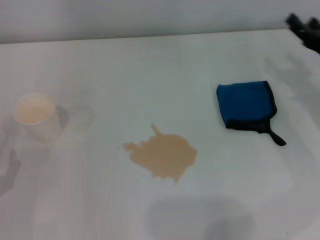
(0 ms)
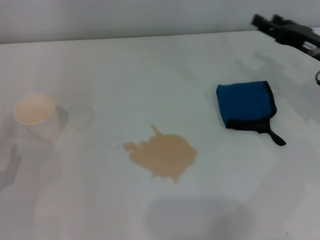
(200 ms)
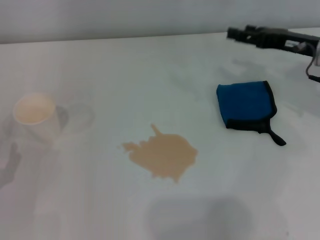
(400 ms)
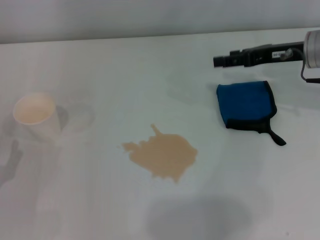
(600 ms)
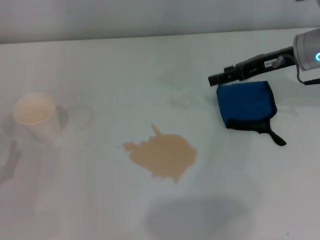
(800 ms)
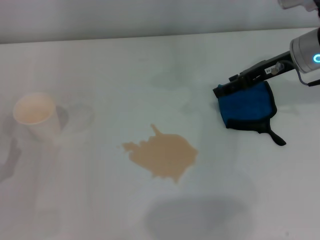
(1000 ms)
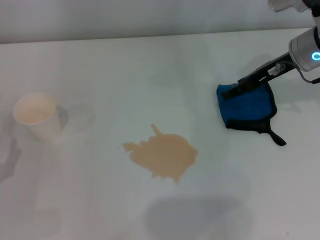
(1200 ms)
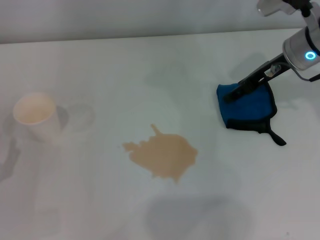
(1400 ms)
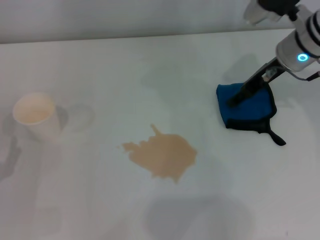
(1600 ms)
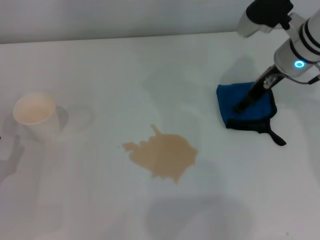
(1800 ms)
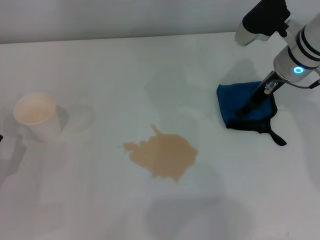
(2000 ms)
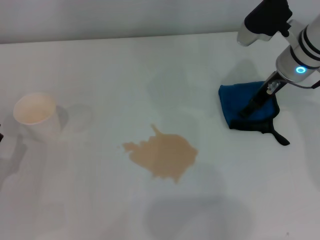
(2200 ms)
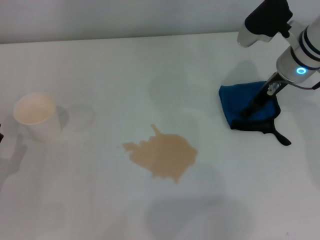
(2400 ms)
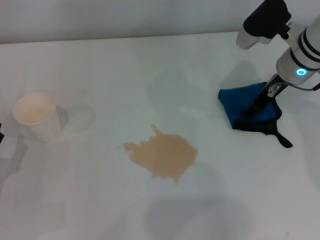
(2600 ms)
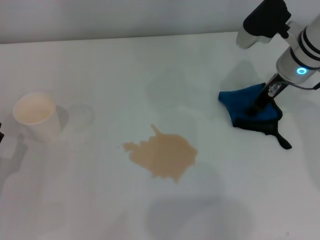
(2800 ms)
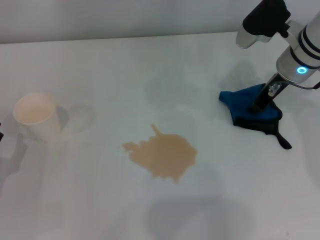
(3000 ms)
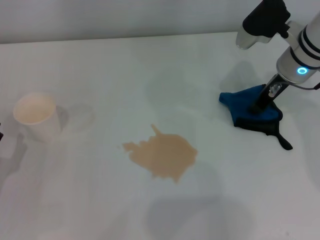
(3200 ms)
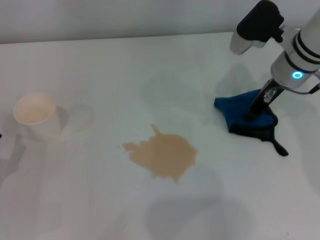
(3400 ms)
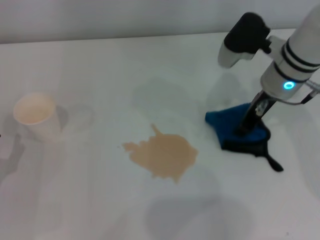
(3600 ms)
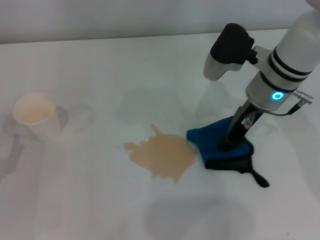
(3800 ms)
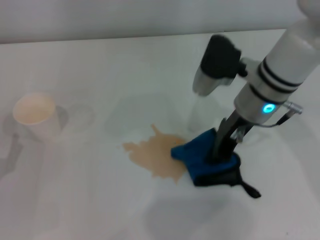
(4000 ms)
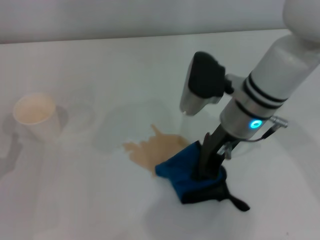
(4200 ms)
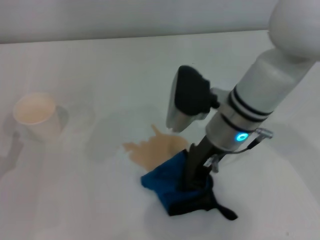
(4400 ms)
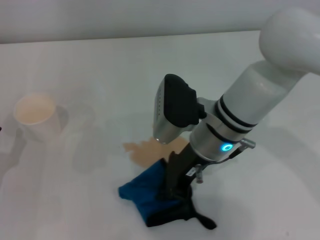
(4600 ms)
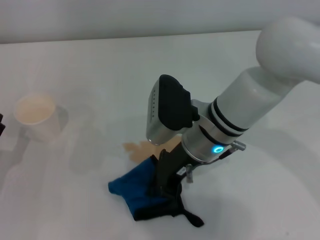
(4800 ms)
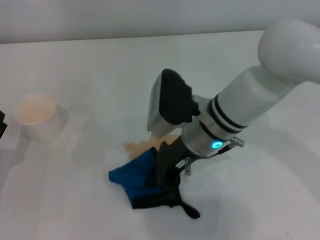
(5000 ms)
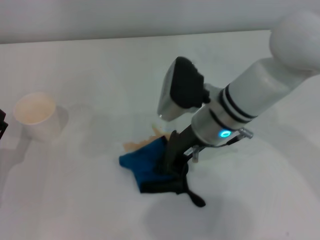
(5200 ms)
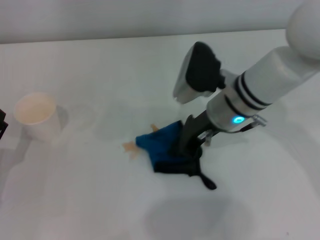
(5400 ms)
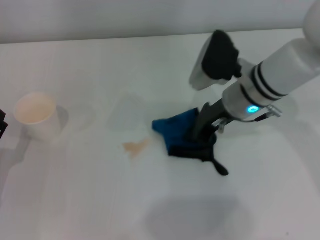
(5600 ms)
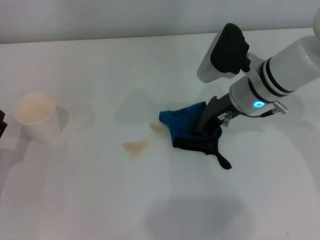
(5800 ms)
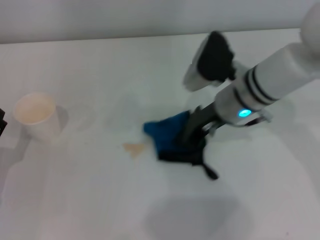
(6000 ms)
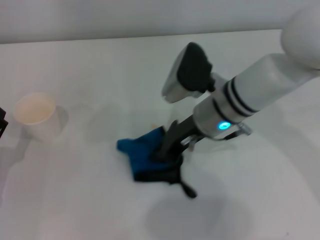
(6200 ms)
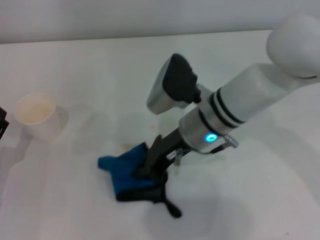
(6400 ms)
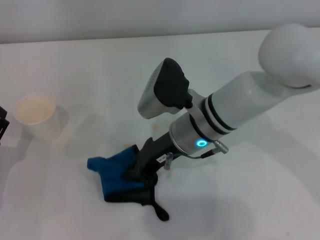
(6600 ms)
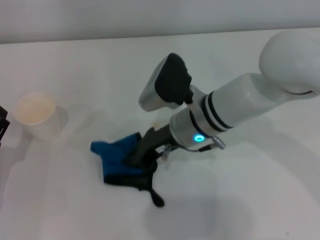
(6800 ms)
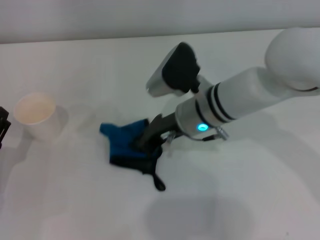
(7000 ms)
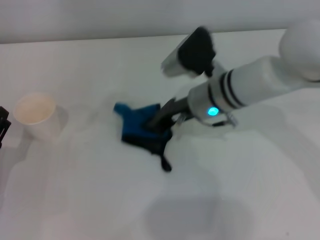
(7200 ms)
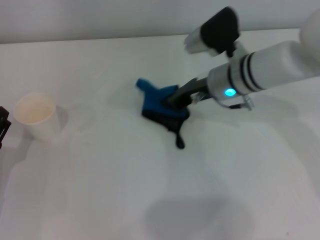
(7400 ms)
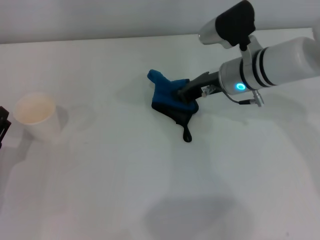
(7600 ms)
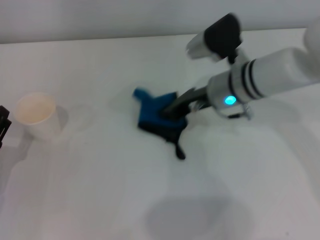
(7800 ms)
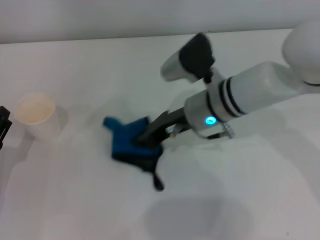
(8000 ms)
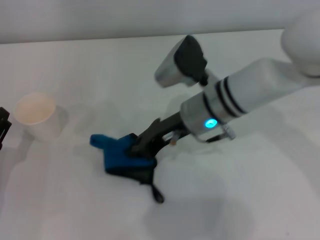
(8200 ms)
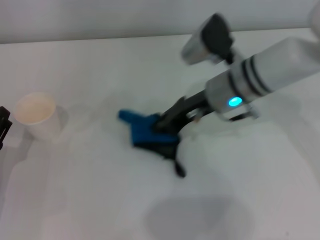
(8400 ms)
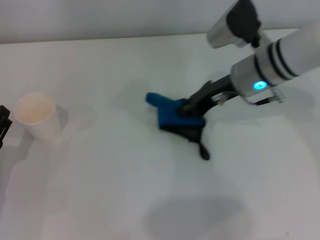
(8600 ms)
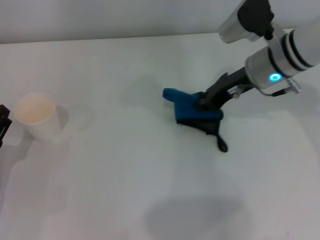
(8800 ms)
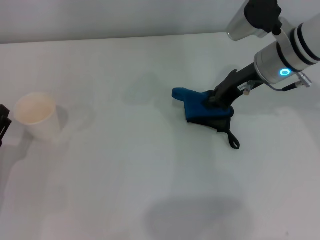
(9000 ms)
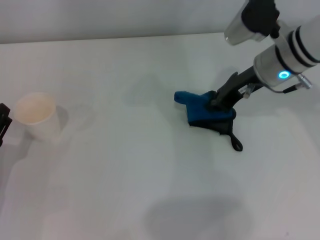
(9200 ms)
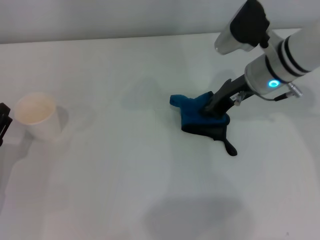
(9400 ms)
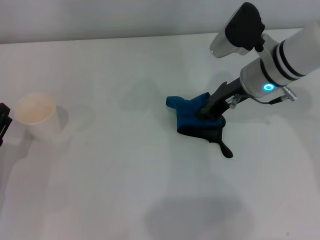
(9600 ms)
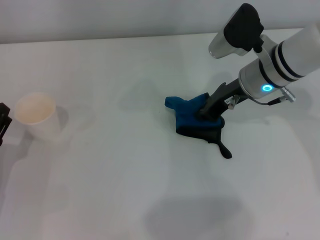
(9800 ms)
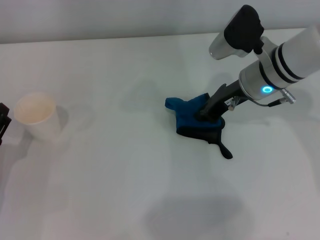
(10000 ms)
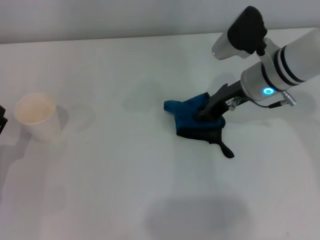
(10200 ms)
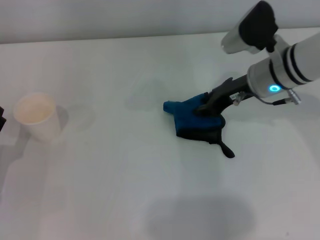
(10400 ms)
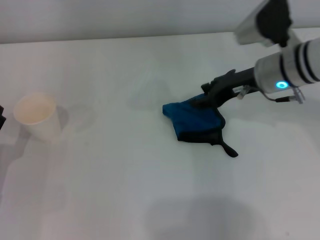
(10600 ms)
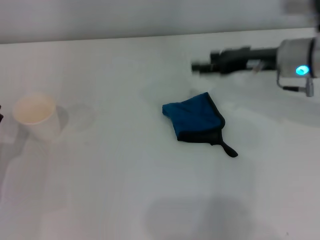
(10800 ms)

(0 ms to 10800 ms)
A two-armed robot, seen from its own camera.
Step, 0 ms - 2800 ms: Grasp the rag with the right gripper.
Step, 3000 ms - 9800 ms: Wipe the stains off the table with the right gripper.
Step, 10000 ms - 10200 ms: Place the rag on the table with the right gripper.
0 ms - 1600 ms: The right gripper is displaced to the left, forward and upward by some 15 cm.
1600 ms - 3000 ms: The right gripper closes.
3000 ms - 4600 ms: The right gripper moves to the left and backward, approximately 15 cm.
4600 ms - 6200 ms: The right gripper travels to the right and back again, about 10 cm each way.
7800 ms - 9200 ms: The right gripper travels to the right by approximately 5 cm.
9200 ms - 10800 ms: The right gripper opens up.

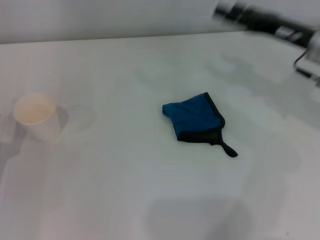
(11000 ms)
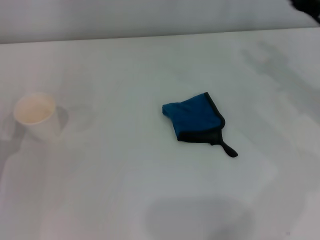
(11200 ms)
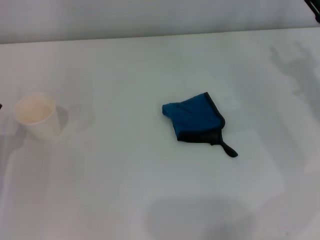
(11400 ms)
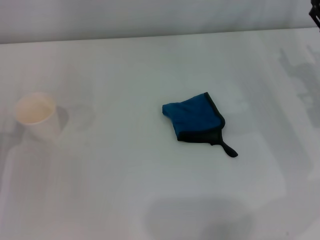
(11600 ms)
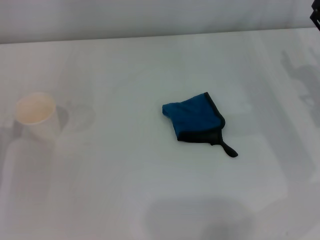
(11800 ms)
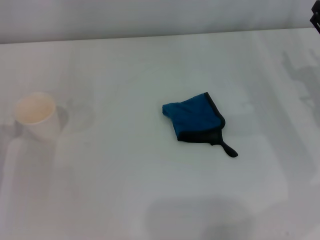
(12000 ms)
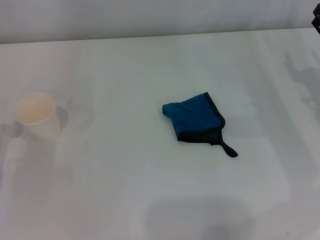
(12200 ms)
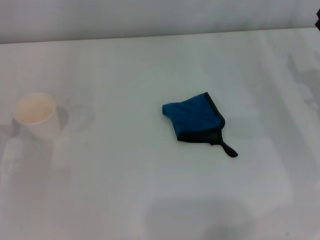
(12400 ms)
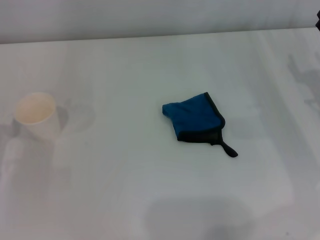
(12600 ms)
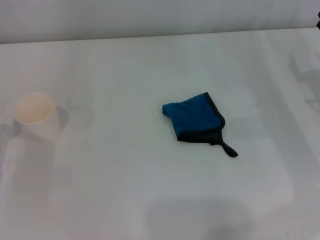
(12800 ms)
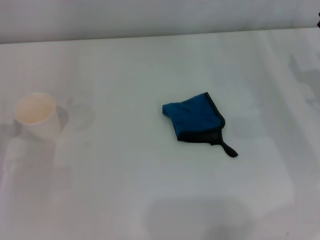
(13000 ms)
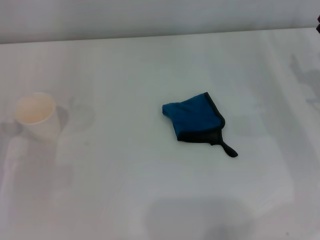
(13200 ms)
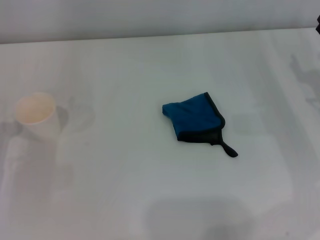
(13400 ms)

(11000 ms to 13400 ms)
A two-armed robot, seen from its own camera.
11000 ms - 12200 ms: The right gripper shifts about 10 cm downward and to the right.
12200 ms - 13400 ms: The two grippers keep their place.

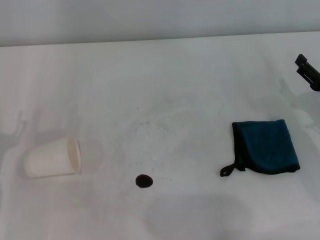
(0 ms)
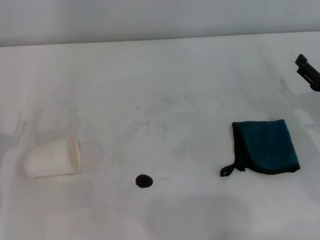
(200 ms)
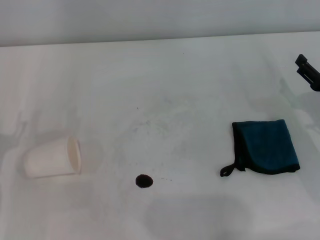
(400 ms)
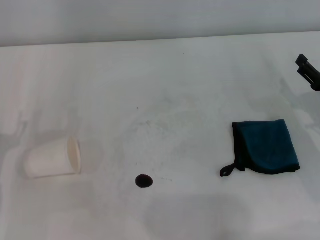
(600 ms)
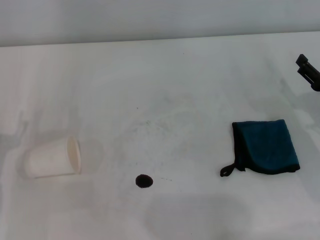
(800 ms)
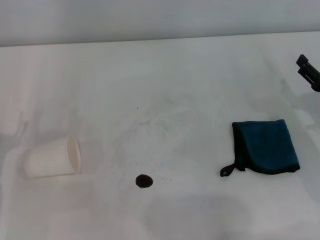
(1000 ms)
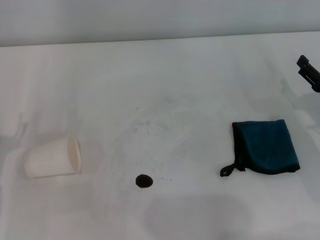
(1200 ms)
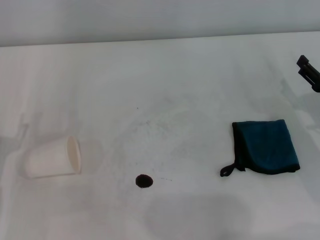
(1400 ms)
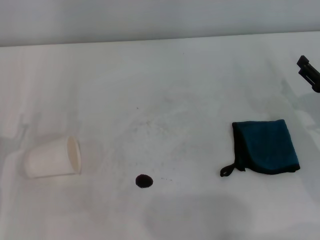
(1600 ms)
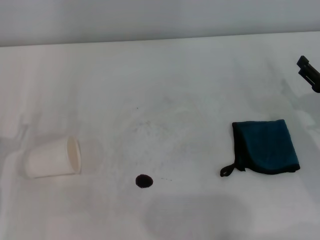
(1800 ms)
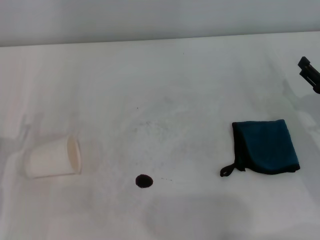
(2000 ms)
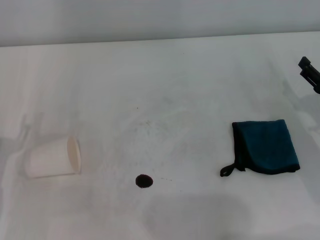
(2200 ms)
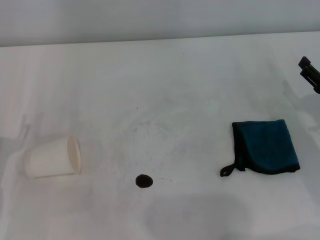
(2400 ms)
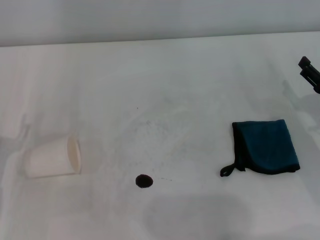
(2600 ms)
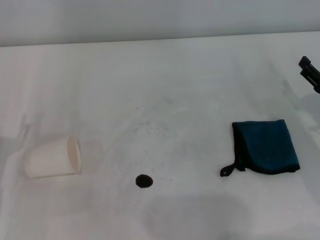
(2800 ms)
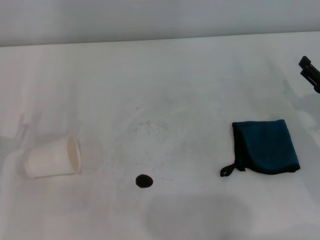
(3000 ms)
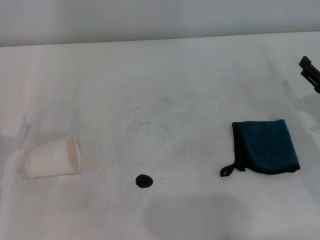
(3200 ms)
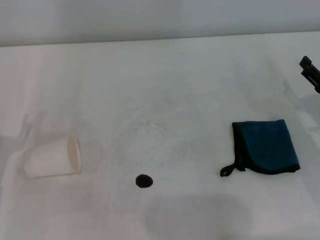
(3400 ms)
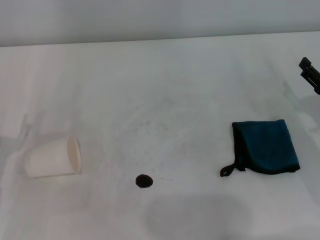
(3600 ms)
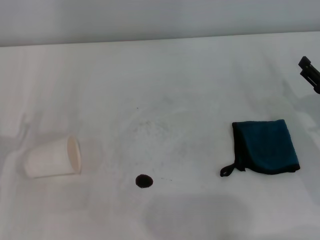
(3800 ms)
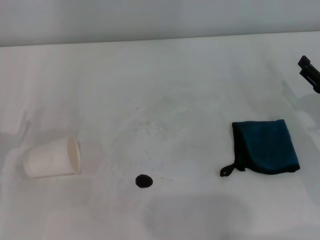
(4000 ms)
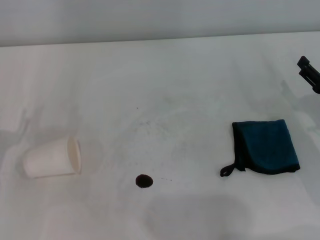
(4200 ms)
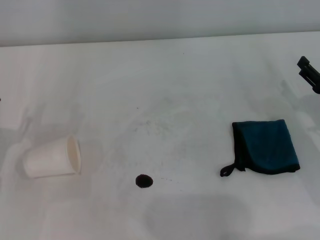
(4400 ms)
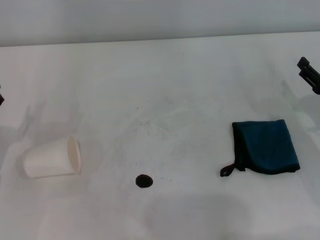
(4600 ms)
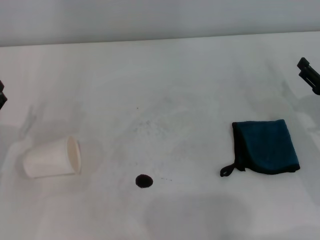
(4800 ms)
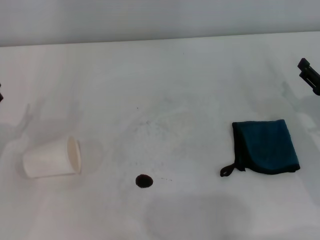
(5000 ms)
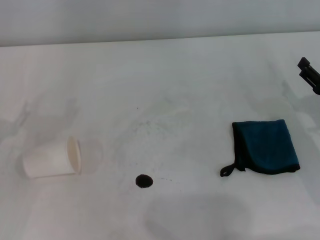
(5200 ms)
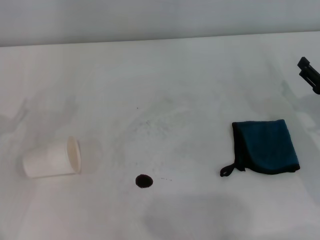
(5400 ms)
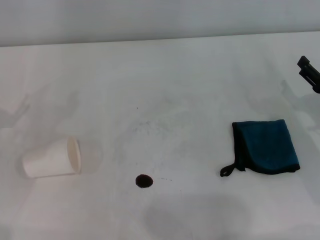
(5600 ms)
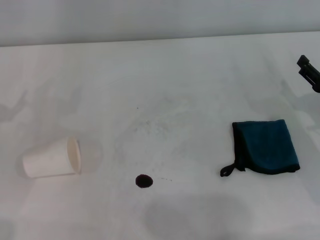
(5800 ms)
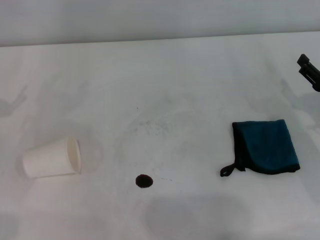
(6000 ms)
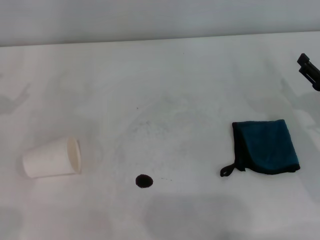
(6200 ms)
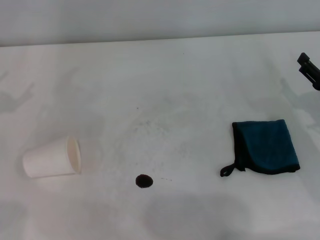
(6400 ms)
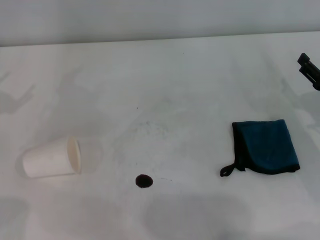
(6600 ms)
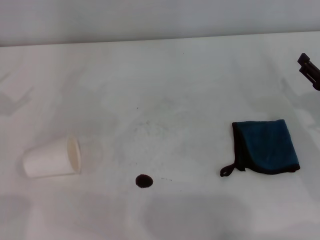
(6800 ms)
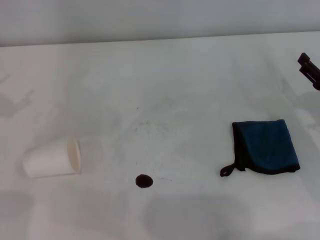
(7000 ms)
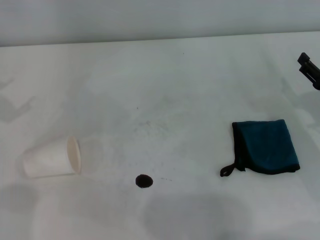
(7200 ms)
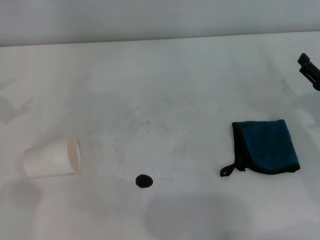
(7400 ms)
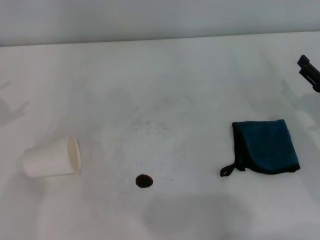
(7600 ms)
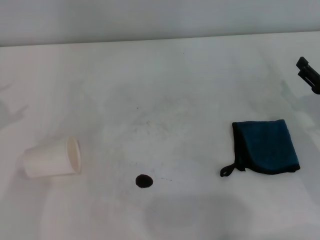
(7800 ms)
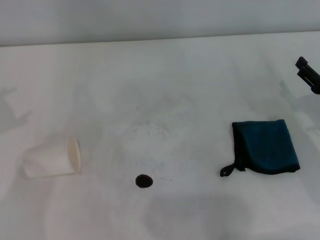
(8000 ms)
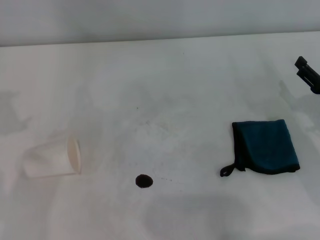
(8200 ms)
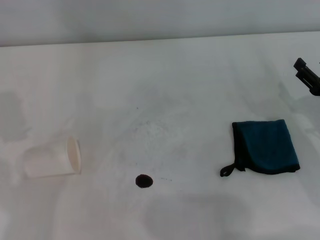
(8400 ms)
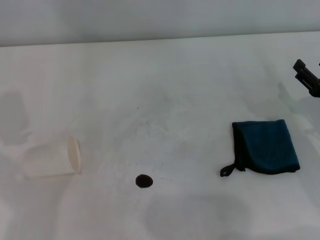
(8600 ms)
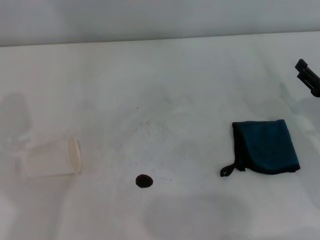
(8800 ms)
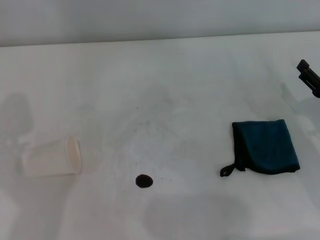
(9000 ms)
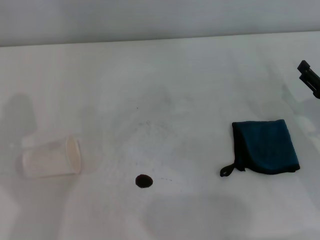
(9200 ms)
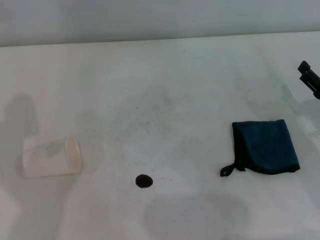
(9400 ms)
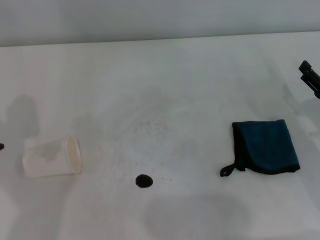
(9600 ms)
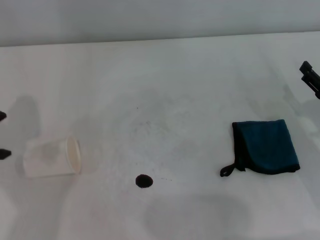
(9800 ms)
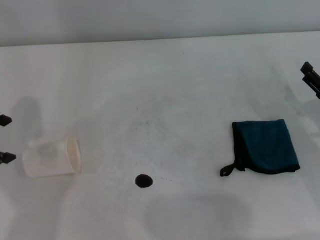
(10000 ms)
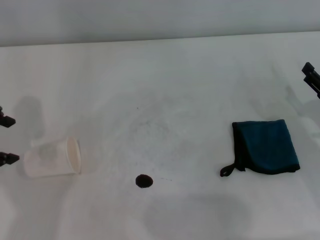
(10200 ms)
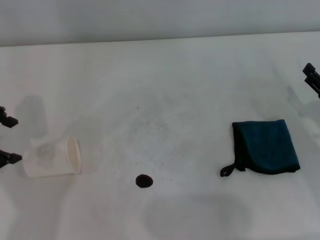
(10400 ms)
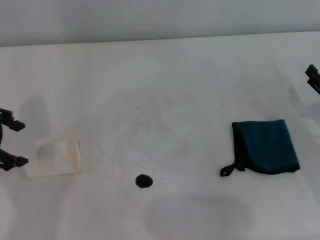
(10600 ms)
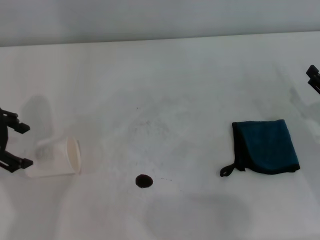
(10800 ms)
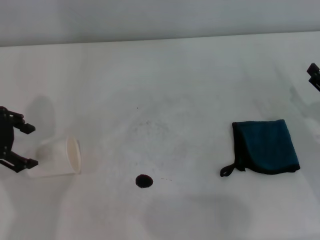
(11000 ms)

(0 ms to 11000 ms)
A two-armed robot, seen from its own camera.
0 ms - 3200 ms: Neither gripper changes place.
7800 ms - 9400 ms: The left gripper travels to the right by some 5 cm.
9400 ms - 11000 ms: The left gripper shifts about 10 cm downward.
